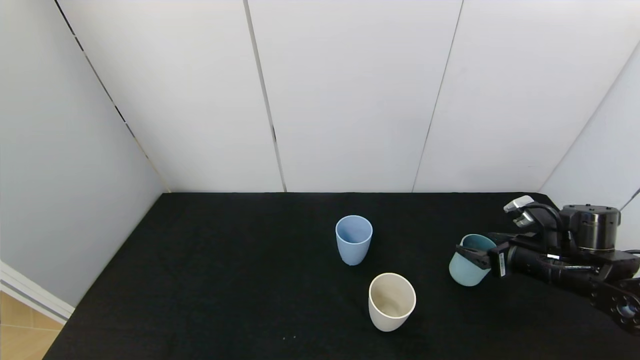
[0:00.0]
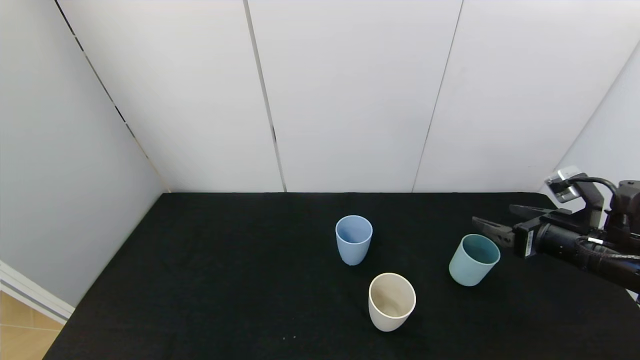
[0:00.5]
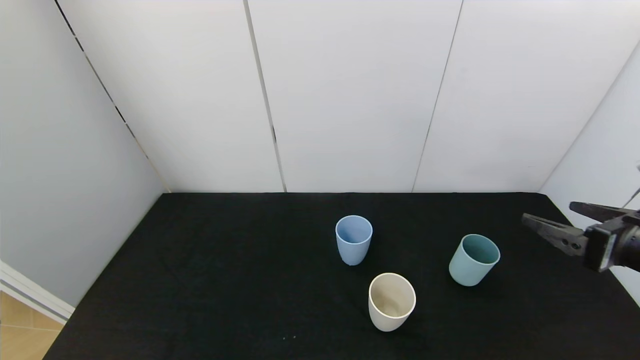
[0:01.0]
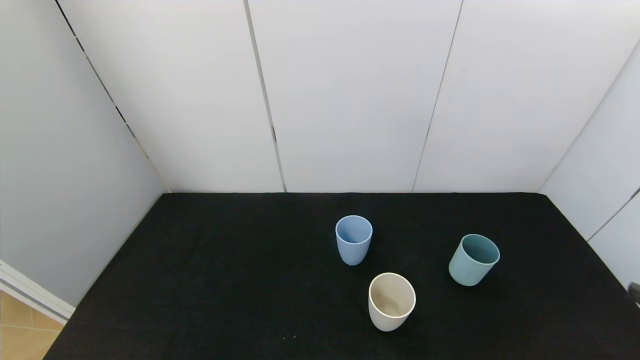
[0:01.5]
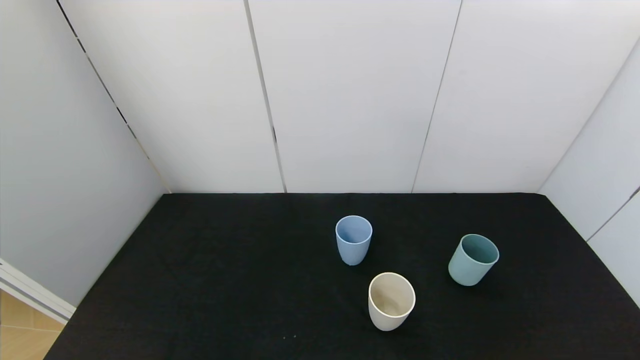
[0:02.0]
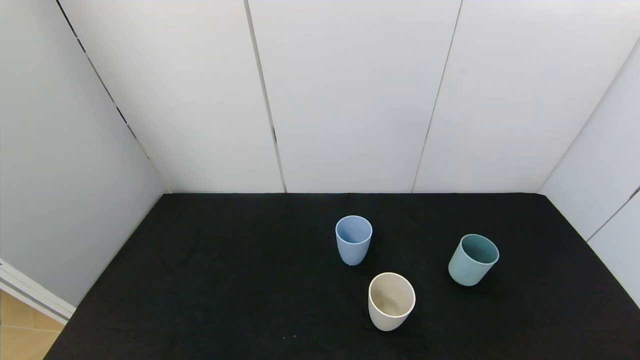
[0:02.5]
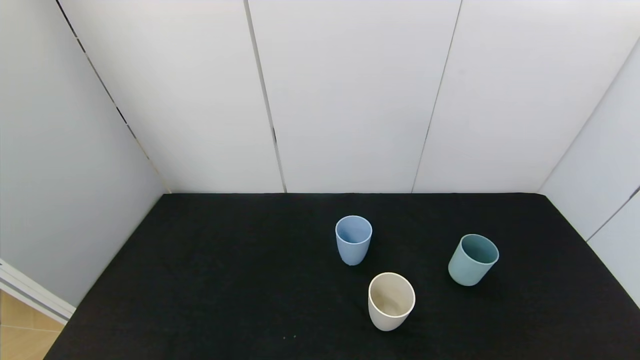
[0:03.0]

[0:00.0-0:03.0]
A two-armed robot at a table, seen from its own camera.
Task of the whole recording: use the gripper to pour the water into the other two cups on black table.
0:00.0 to 0:01.5: The right gripper moves backward and upward, approximately 25 cm.
